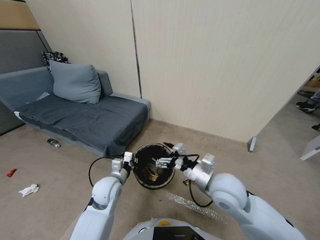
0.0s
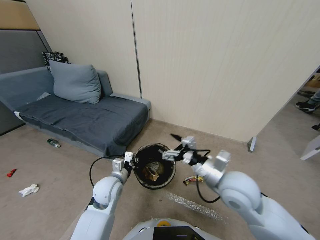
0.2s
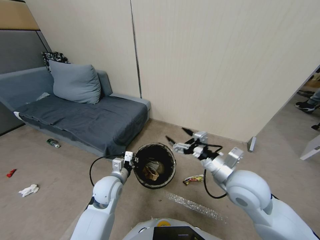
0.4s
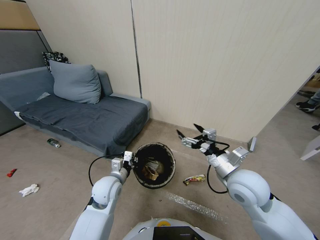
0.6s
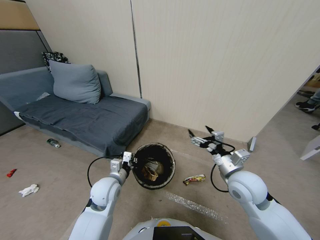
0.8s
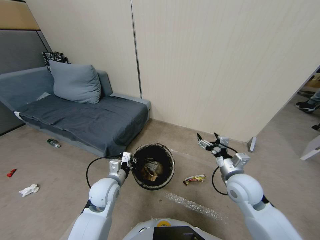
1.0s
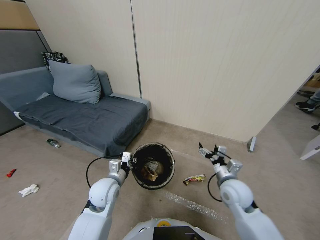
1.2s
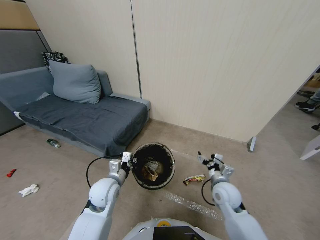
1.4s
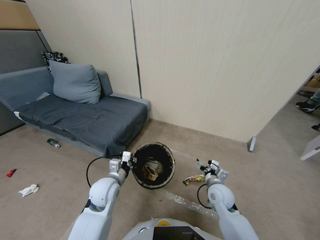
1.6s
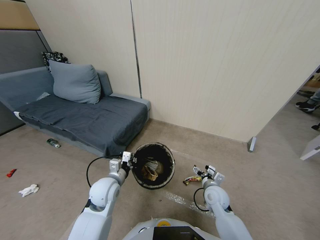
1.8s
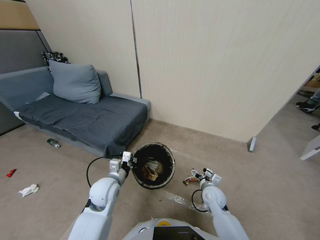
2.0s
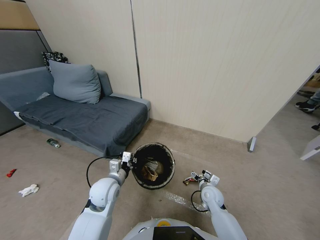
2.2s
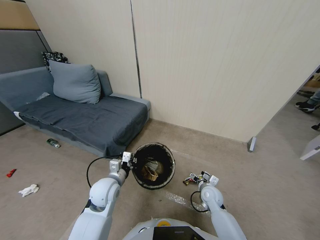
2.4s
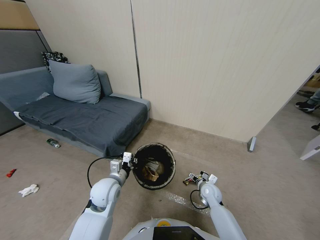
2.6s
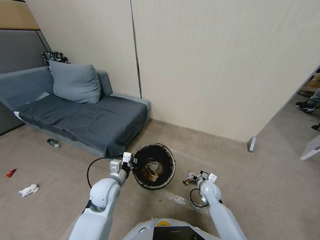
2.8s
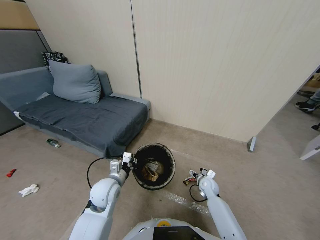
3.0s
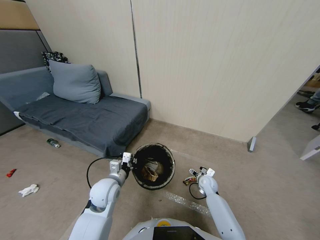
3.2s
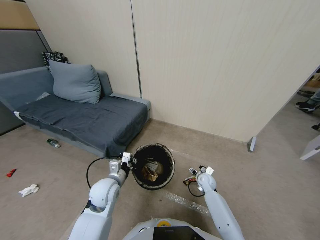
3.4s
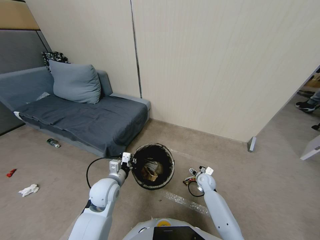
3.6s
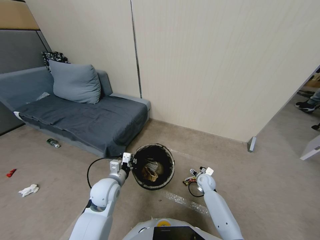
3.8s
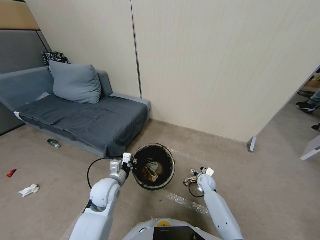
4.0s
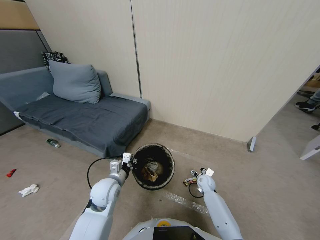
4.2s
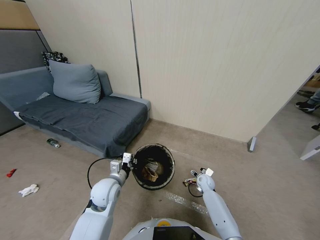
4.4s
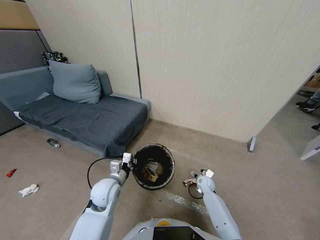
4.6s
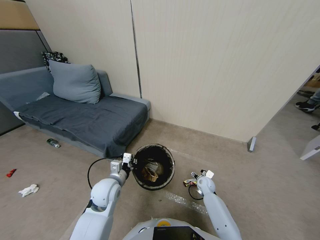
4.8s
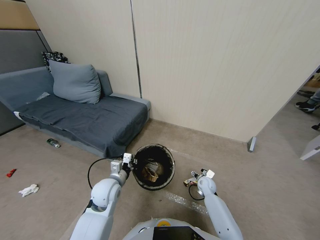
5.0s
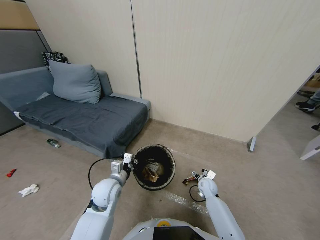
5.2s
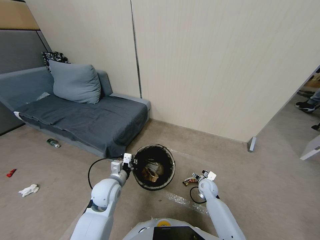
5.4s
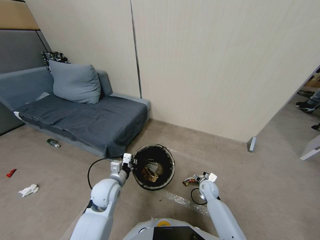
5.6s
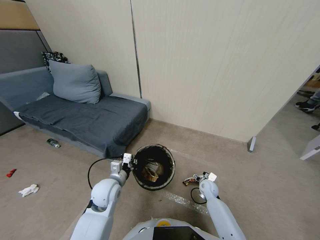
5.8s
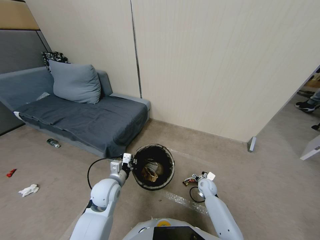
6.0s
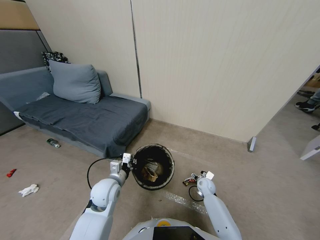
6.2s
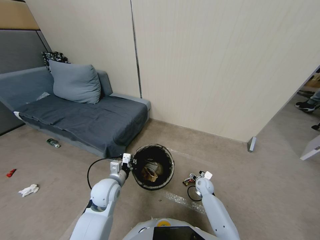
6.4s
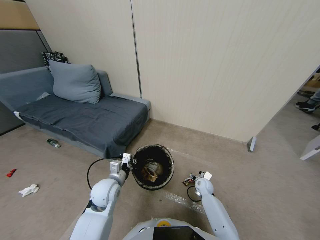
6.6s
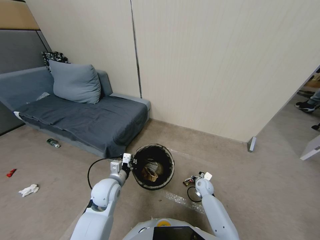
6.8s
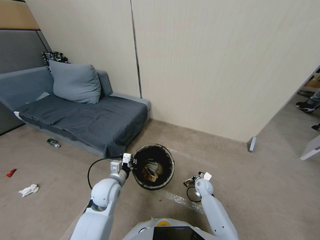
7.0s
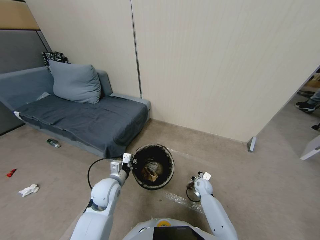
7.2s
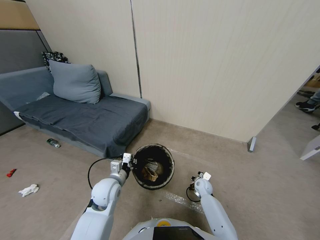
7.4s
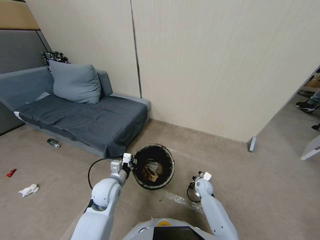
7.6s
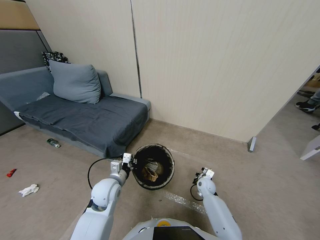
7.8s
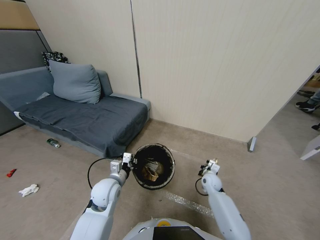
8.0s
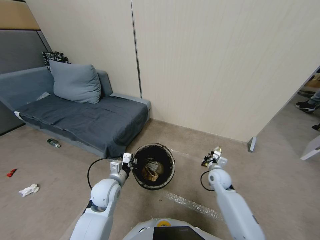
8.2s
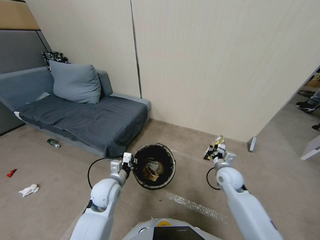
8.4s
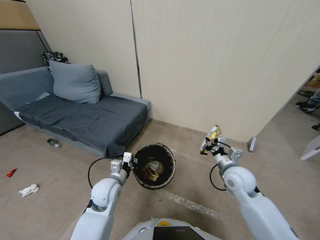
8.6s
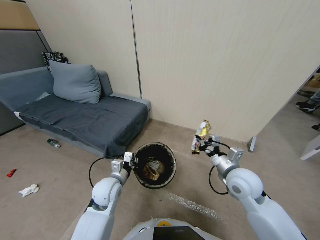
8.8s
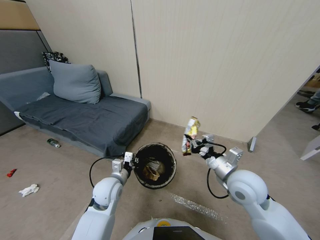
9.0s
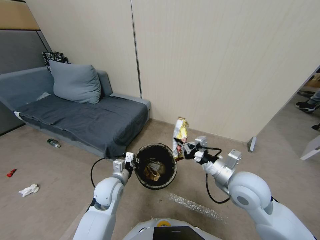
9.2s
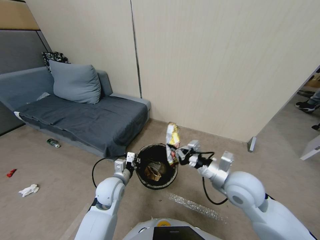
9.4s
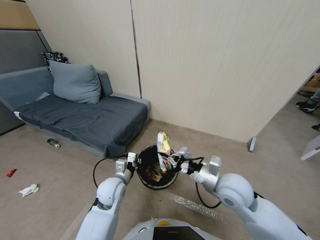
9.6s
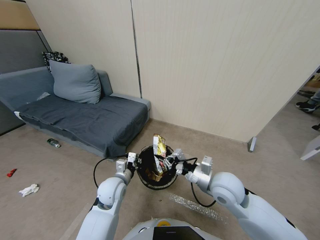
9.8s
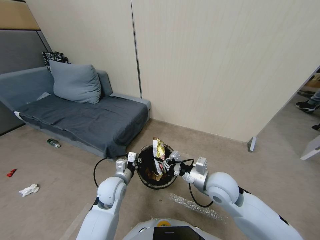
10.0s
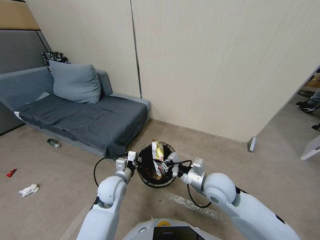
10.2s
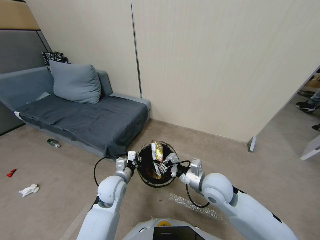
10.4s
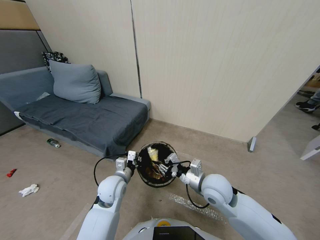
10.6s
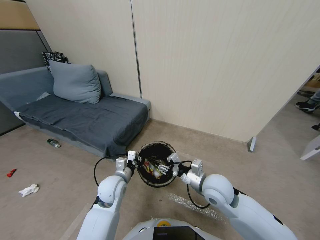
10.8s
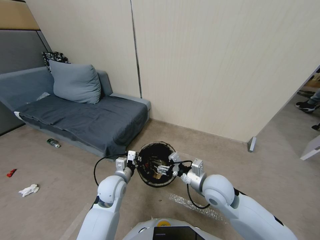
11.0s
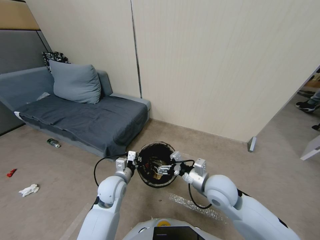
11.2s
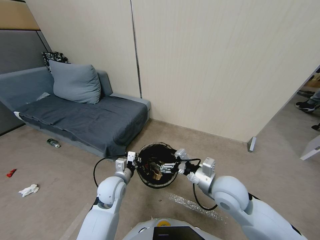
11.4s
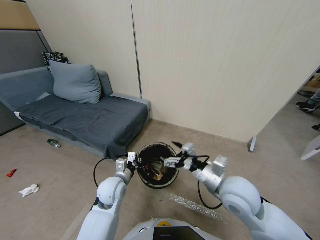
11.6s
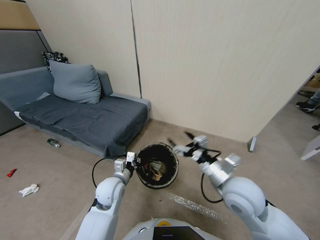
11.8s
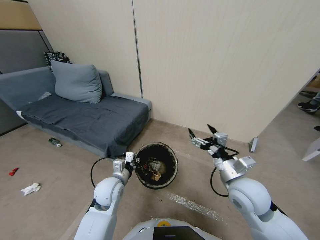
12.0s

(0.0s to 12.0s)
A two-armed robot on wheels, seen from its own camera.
Task of the whole recording: Pick up the trash bin, then pick up the garbage from the floor and place it into the trash bin.
0.0s - 1.6s: The right gripper moves downward, approximately 20 cm.
1.6s - 3.0s: The right gripper is displaced downward and forward by about 15 cm.
3.0s - 4.4s: The grippers make only small movements.
6.0s - 7.6s: The right gripper closes.
7.6s - 9.0s: The right gripper is displaced upward by roughly 35 cm.
9.0s - 10.4s: The right gripper travels to the left and downward by roughly 10 cm.
10.4s - 12.0s: The right gripper goes about 5 cm upward, and opens its fingers.

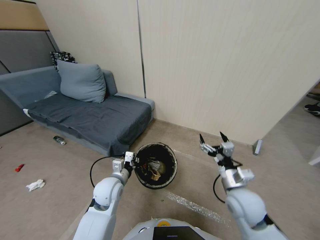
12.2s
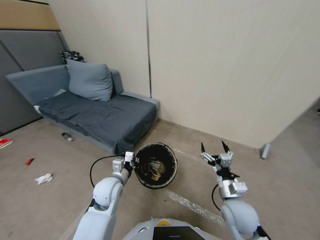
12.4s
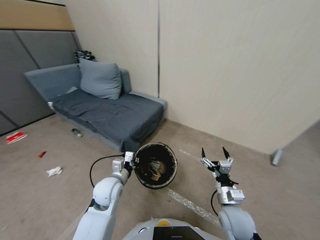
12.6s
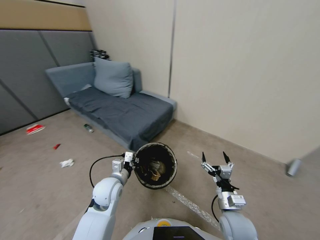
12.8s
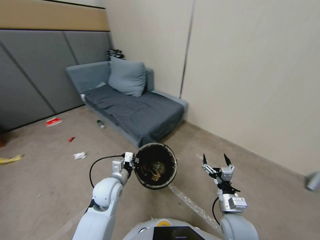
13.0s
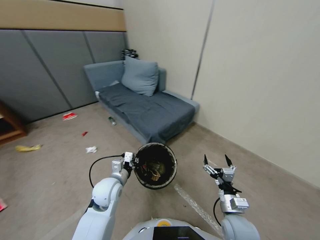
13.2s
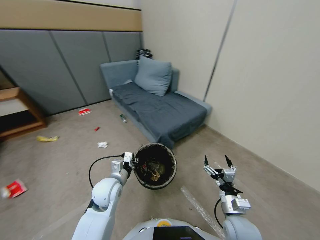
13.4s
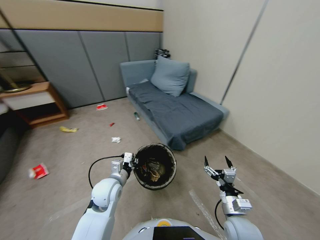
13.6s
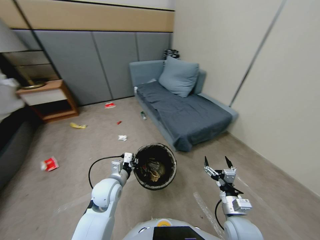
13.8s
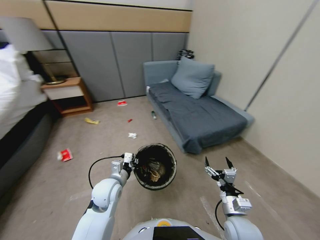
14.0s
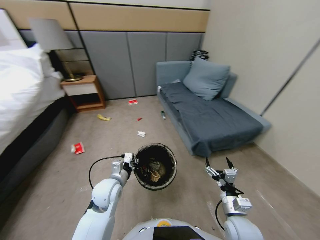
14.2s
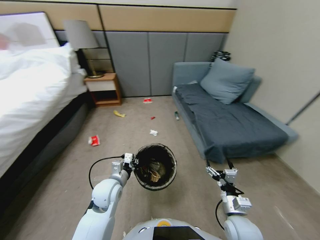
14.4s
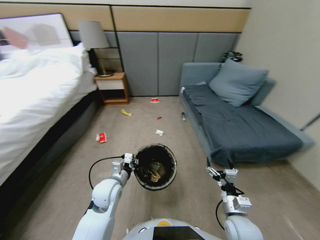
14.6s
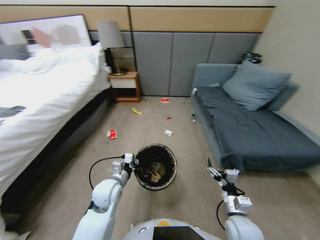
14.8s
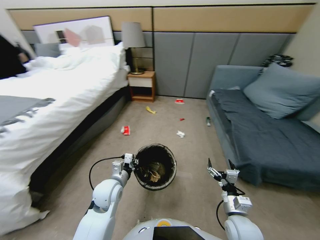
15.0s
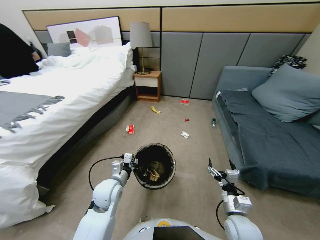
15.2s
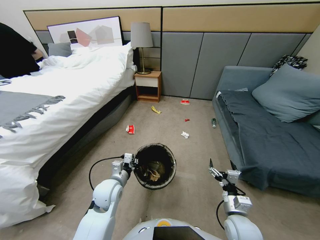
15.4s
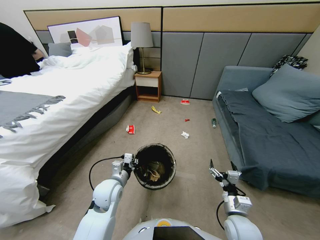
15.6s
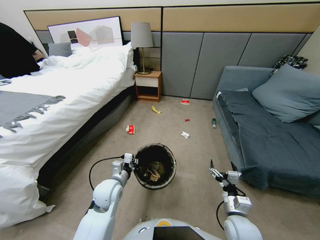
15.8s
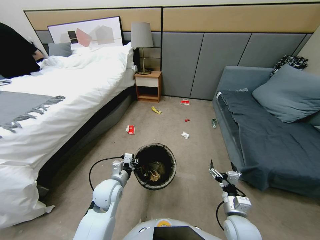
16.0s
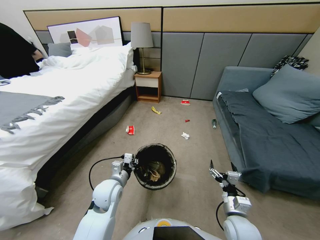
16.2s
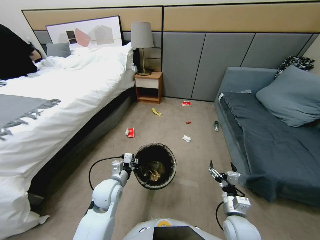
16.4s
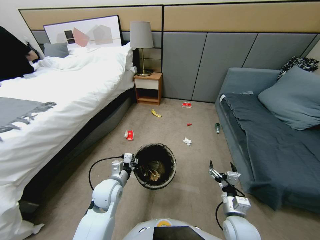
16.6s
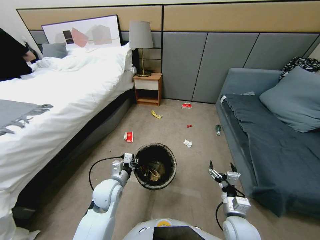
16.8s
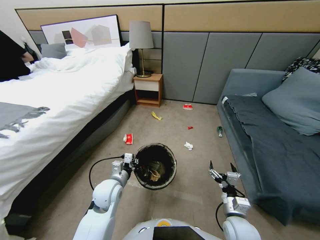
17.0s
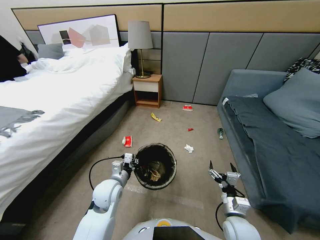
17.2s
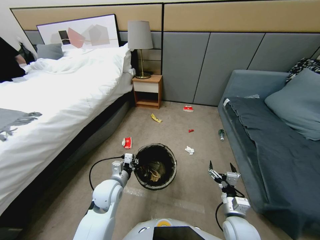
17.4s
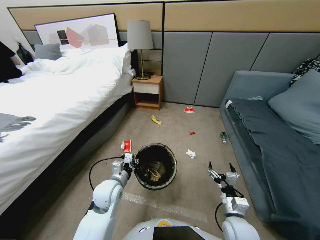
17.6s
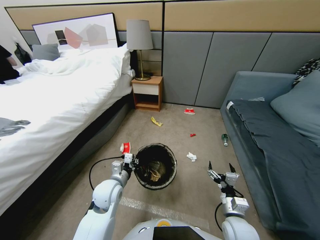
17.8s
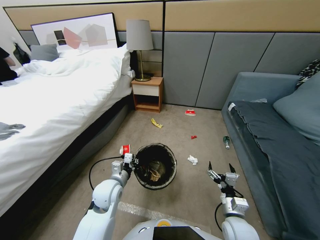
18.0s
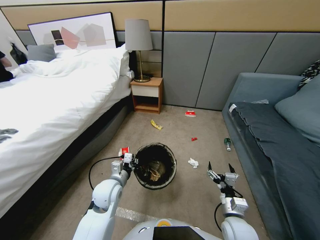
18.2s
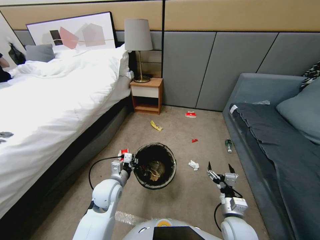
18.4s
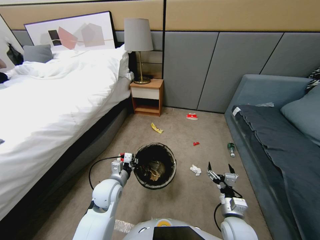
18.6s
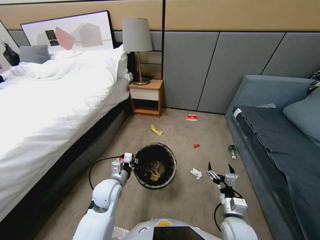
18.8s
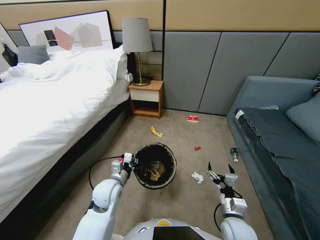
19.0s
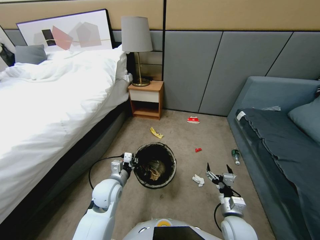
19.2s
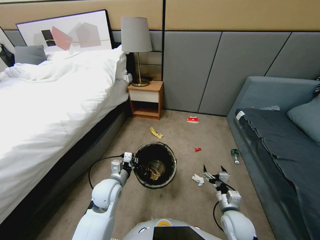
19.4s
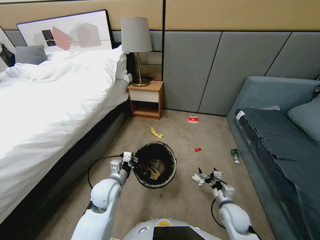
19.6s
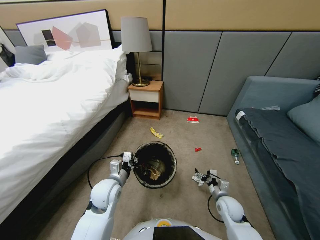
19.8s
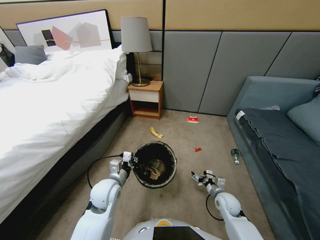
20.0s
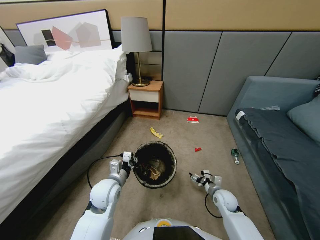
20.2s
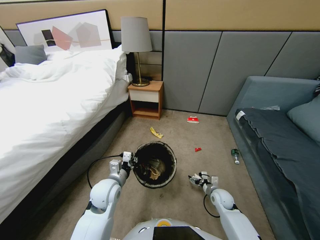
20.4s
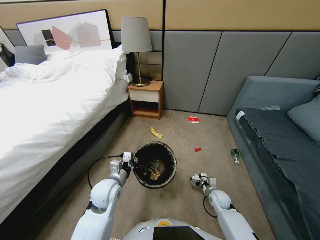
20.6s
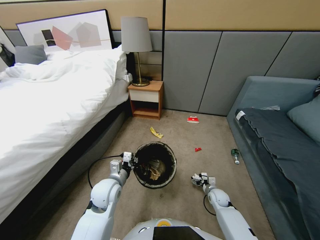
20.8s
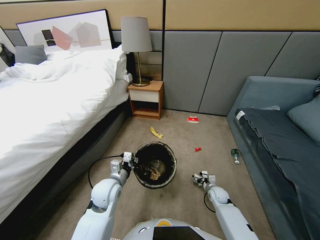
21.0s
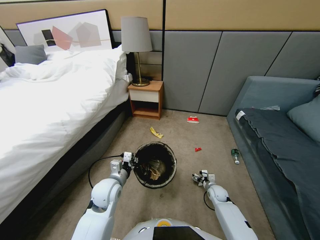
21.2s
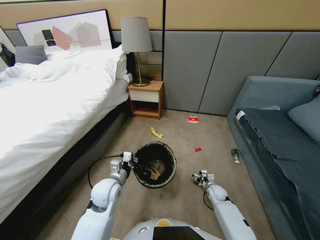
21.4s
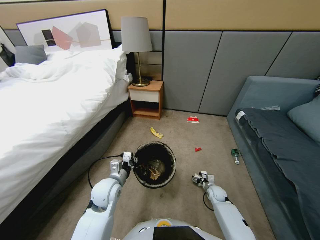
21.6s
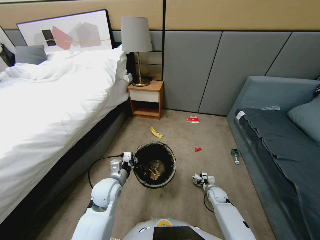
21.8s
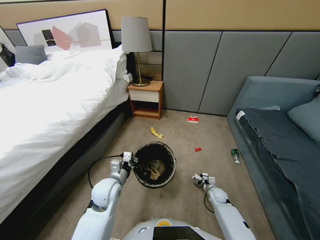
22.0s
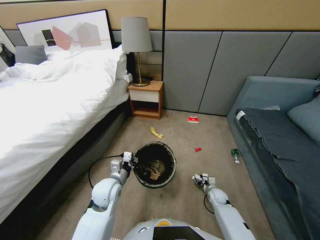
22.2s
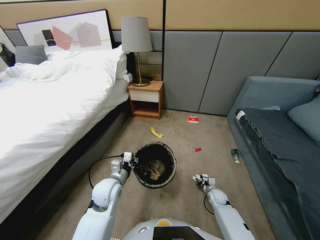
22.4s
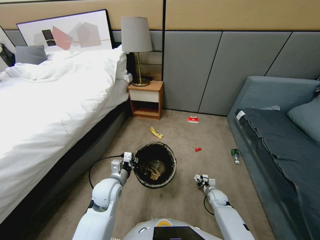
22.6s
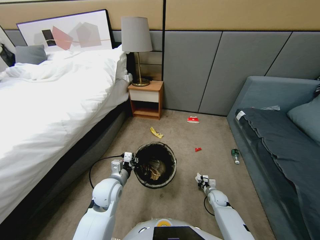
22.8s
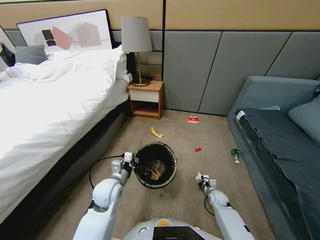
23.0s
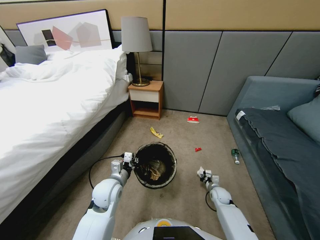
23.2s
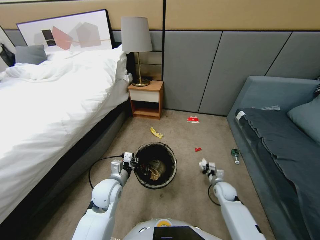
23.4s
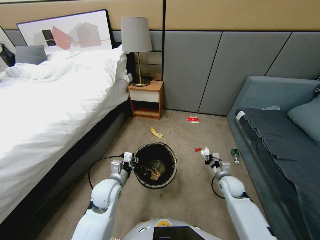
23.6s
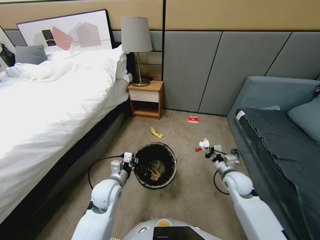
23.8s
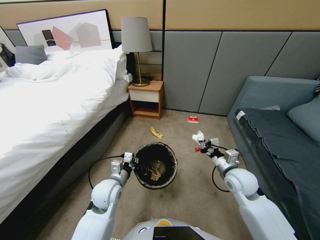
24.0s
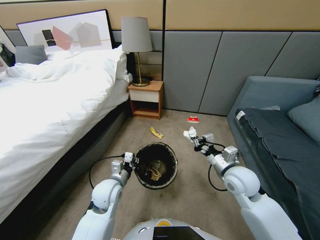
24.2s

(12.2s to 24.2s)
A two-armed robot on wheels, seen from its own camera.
Task of the whole recording: Pick up the trash bin, then pick up the garbage from the floor and place it into the trash bin.
12.2s - 13.8s: The right gripper shifts about 15 cm downward and backward.
18.2s - 19.8s: The right gripper goes about 10 cm forward and downward.
19.8s - 21.2s: The right gripper goes about 10 cm downward and forward.
21.2s - 22.6s: The right gripper closes its fingers.
22.6s - 24.2s: The right gripper heads upward, covering some 35 cm.
